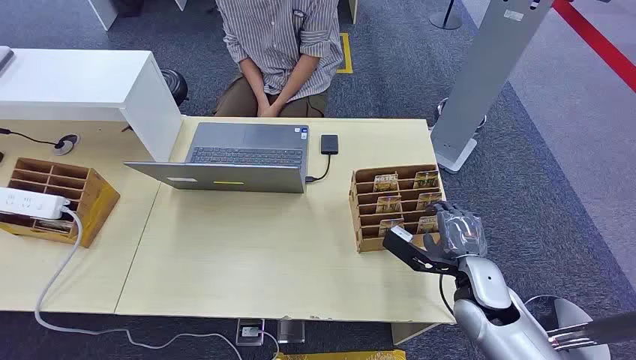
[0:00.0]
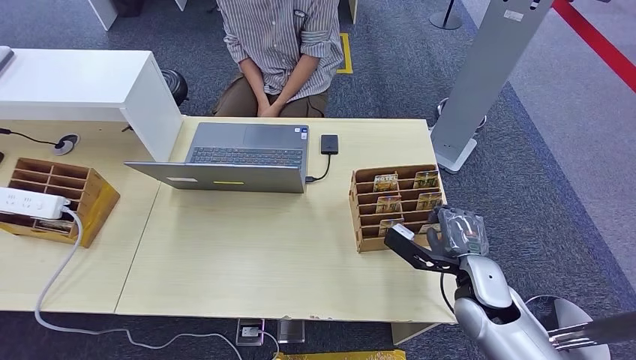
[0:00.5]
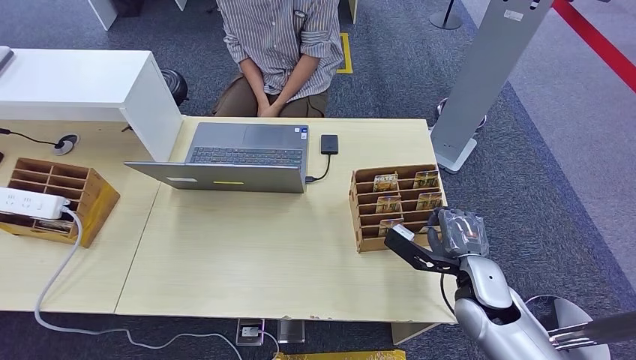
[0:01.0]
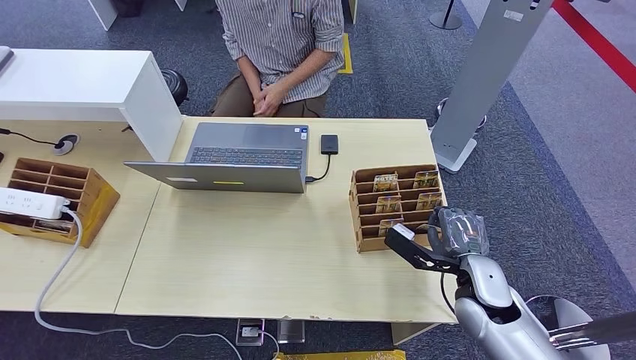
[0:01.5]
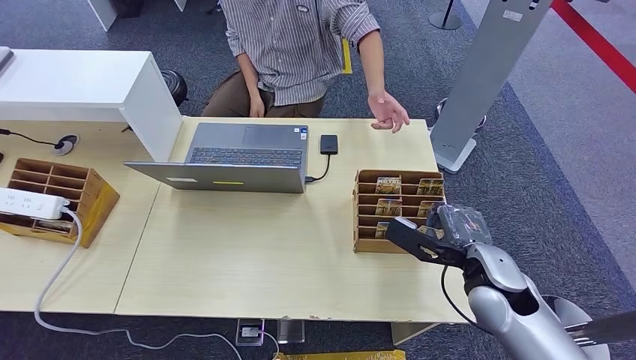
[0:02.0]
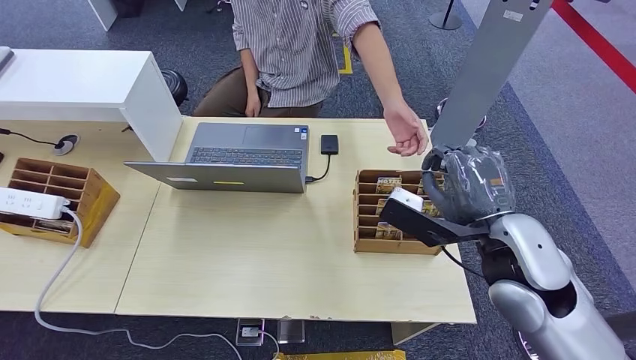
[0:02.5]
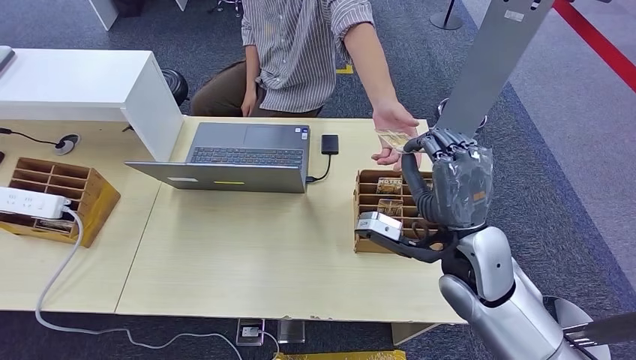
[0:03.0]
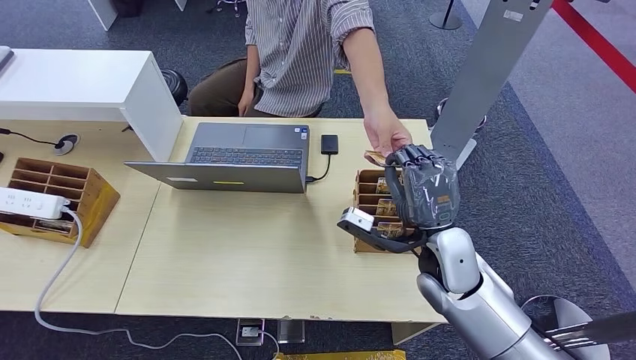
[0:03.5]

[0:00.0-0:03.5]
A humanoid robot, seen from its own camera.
Step, 0:00.0 to 0:02.0: Pick up the key card from the card box.
Step, 0:03.0 to 0:03.5: Hand the key card to the target.
0:02.0 to 0:03.5: The right hand goes some 10 cm to the left, and travels upward and back again, roughly 10 cm each way.
